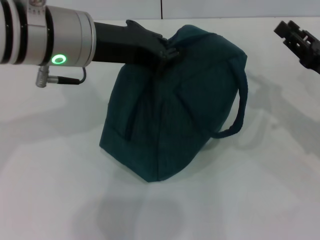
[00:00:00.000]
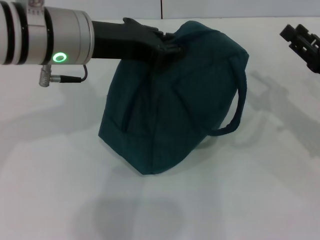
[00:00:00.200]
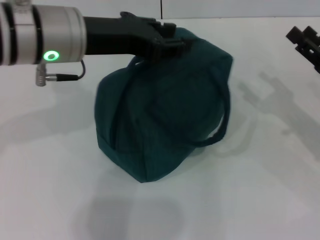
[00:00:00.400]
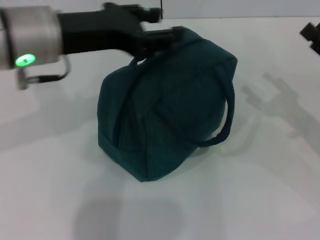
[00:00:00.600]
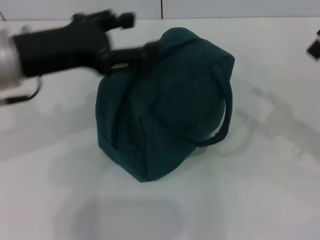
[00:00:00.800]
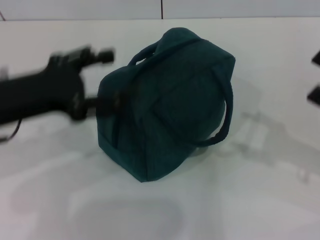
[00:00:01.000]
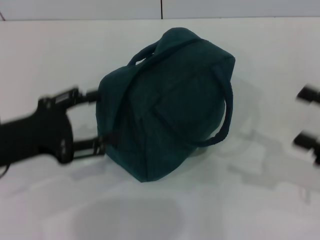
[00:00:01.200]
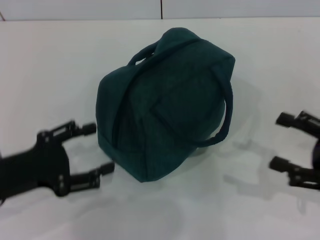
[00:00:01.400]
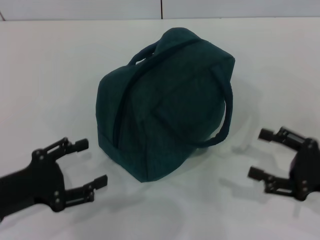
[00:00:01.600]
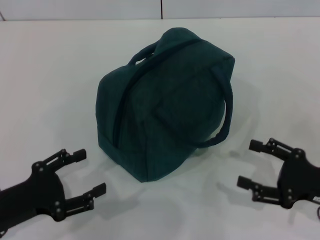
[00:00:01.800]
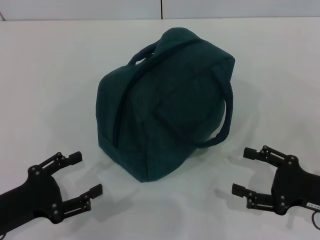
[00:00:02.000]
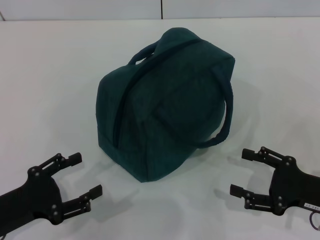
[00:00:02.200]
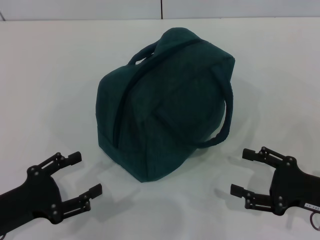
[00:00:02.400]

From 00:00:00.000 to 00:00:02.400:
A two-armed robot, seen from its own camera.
Step, from 00:00:00.000 to 00:00:00.400: Hold the lunch bag with your left hand.
From 00:00:00.000 to 00:00:01.200: The left gripper goes about 20 cm to the left, downward and backward, and opens its fingers. The right gripper shifts some 10 cm backward, and opens.
From 00:00:01.200 to 00:00:02.400: The right gripper travels downward by about 10 cm; the left gripper goes some 10 cm downward and backward.
